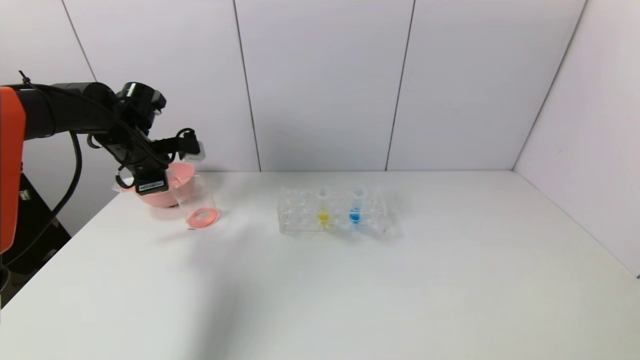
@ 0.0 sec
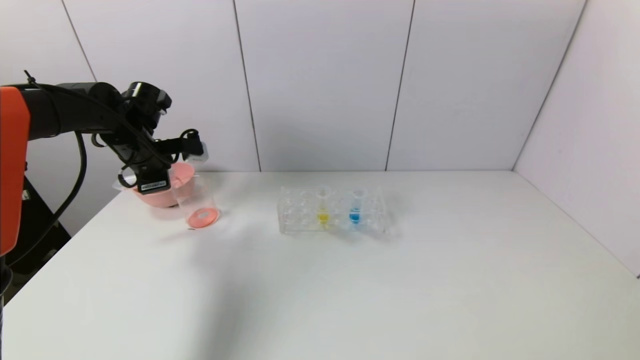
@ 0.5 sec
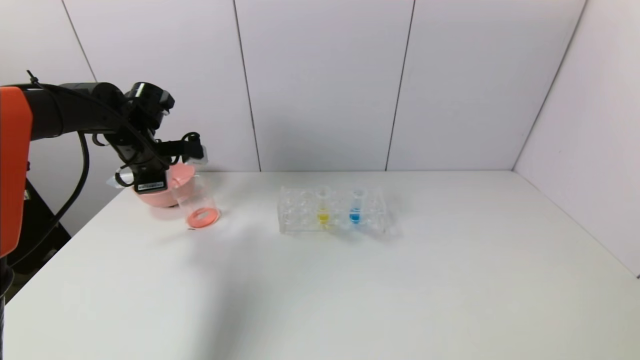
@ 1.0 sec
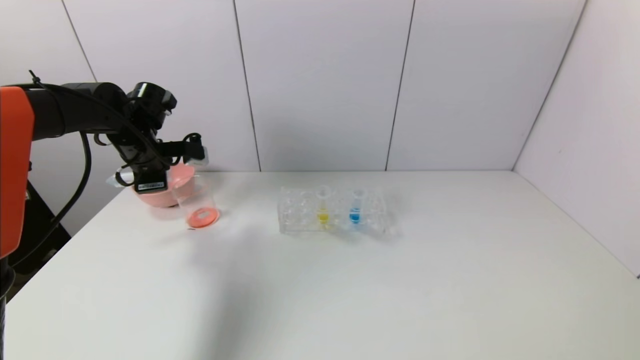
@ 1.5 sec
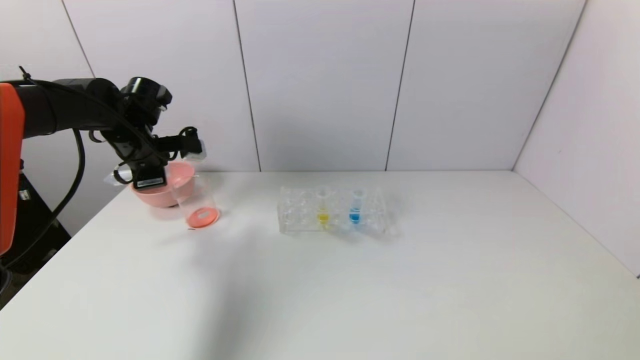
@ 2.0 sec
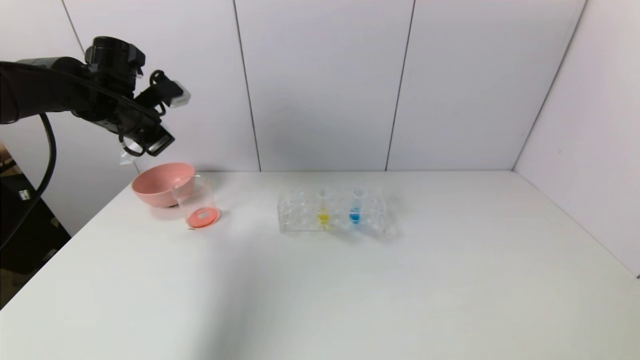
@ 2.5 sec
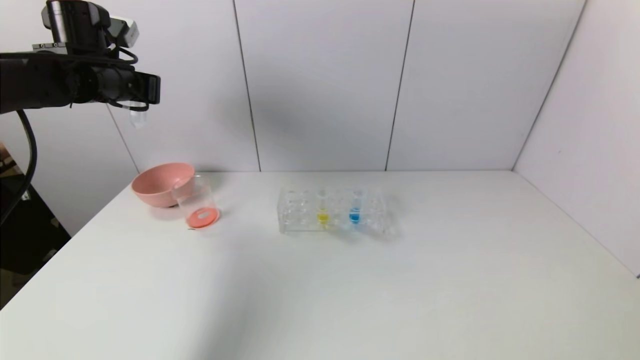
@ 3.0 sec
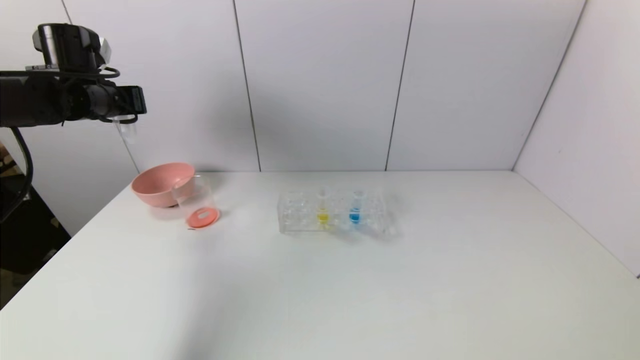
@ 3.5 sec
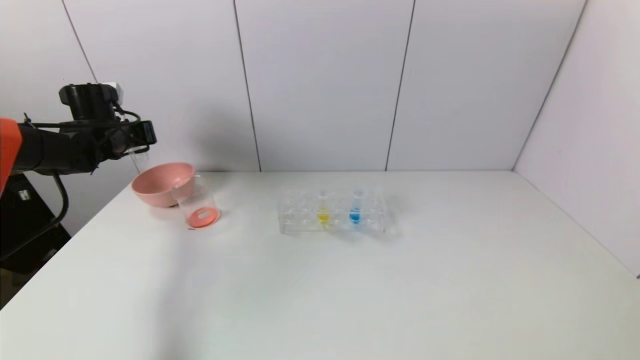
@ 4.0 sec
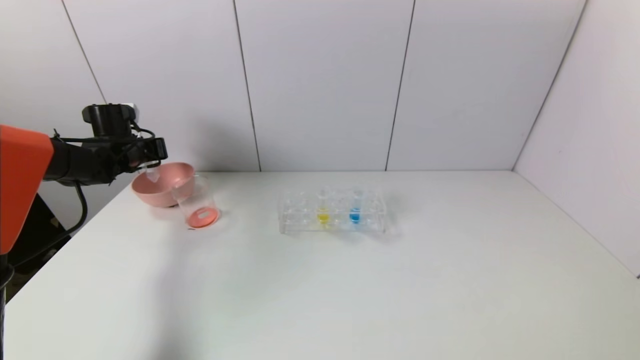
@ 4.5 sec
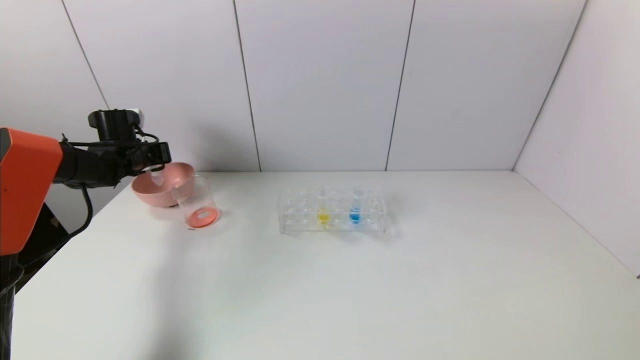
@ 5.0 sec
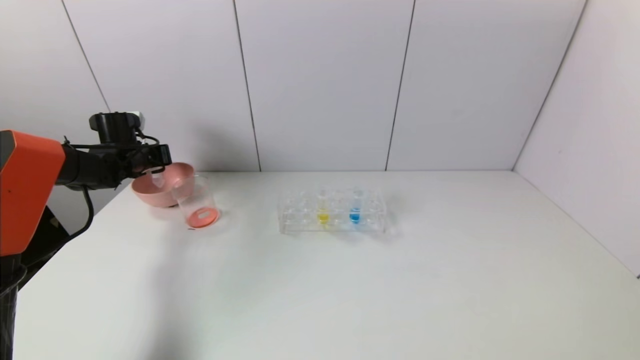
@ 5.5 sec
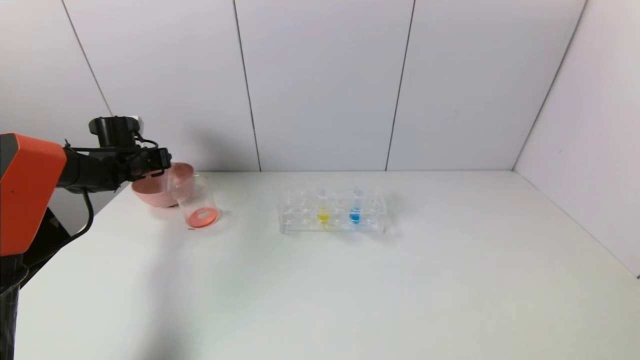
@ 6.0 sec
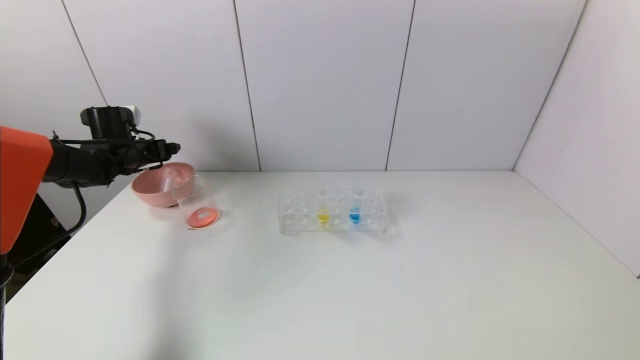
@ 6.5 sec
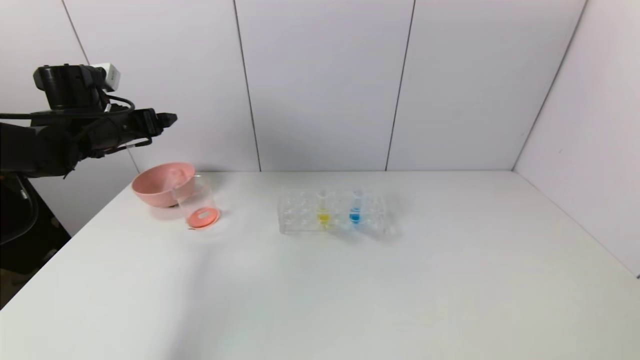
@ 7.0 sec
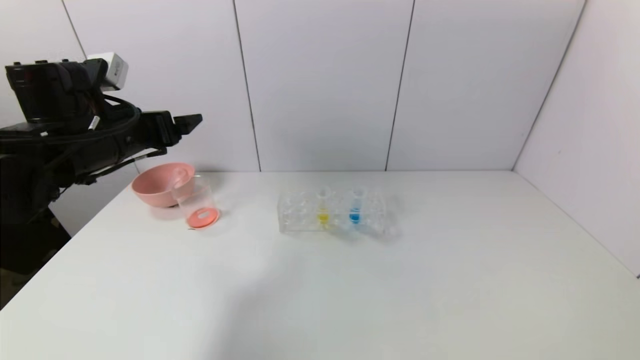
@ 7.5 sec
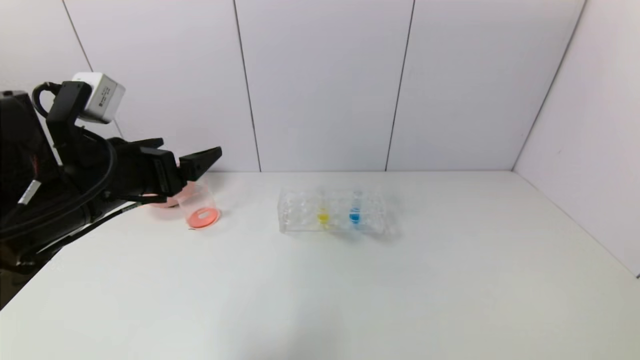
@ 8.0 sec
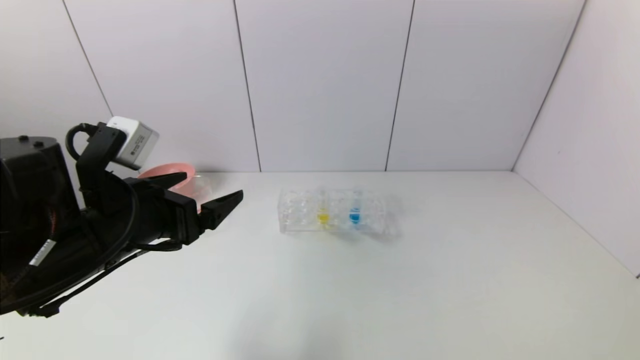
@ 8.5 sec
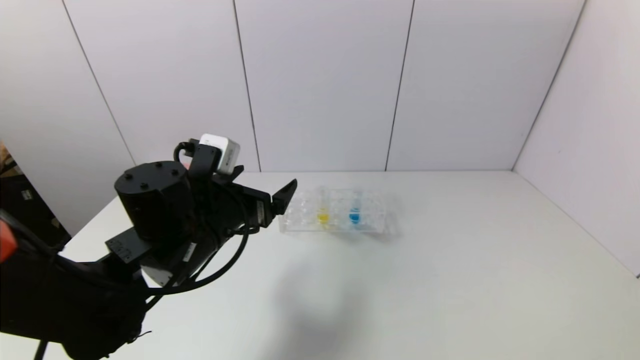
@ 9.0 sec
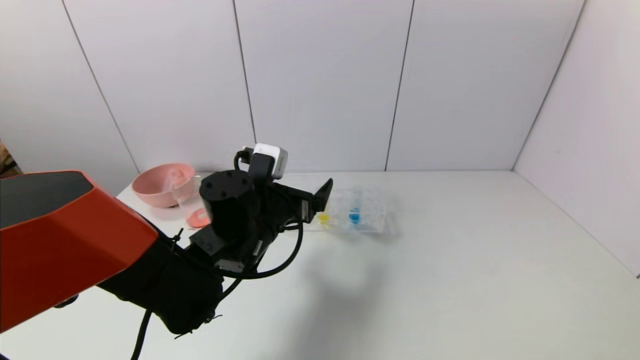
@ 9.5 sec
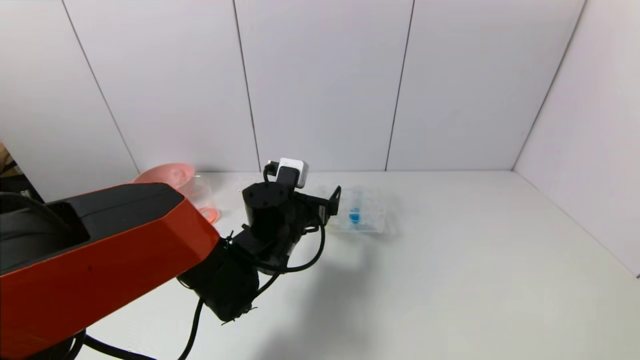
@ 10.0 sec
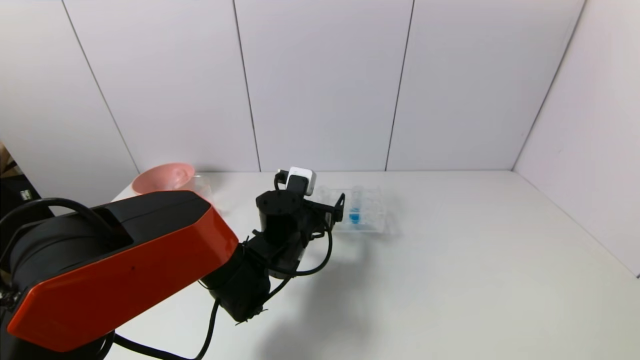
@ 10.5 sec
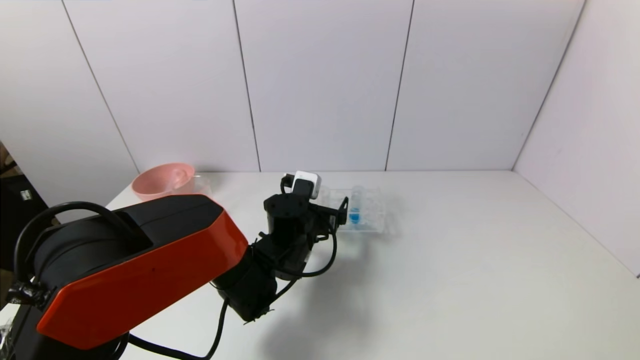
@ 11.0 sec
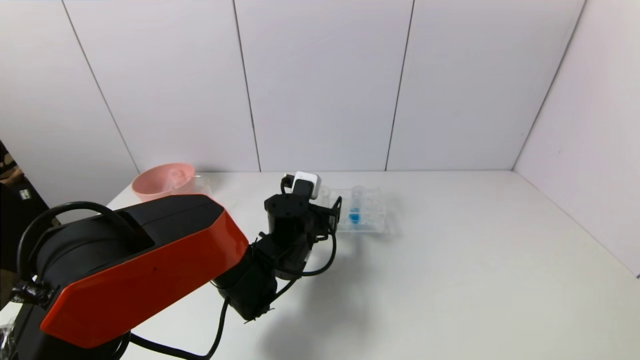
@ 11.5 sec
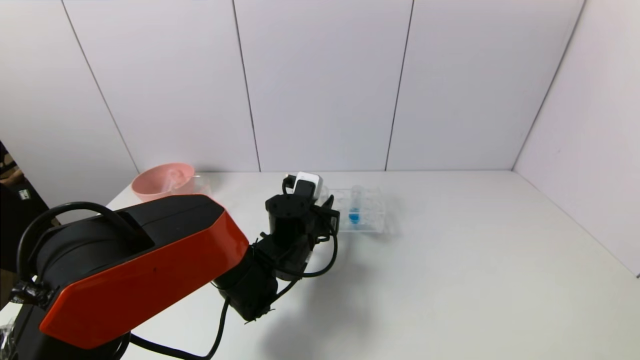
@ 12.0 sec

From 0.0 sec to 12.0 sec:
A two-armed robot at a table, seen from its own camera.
Task of the whole recording: pick up the test tube with yellow pigment and the test tube with red pigment by grippers and pour them into the beaker.
Step, from 2.0 sec to 6.0 sec: Place the test tube into the pink bowl with the left gripper.
From 0.0 sec to 2.0 sec: The grippers stay close to where they were, moving slightly.
From 2.0 sec to 4.0 sec: The left gripper is displaced to the left by approximately 10 cm, and travels upward and back again, about 10 cm each way.
From 4.0 sec to 6.0 sec: The left gripper goes about 5 cm downward, and opens up.
From 6.0 sec to 8.0 sec: The left gripper travels backward and to the right by about 30 cm, and opens its fingers.
From 8.0 sec to 10.0 sec: The left gripper shifts approximately 25 cm to the right, downward and forward.
From 10.0 sec to 12.0 sec: The left gripper closes up.

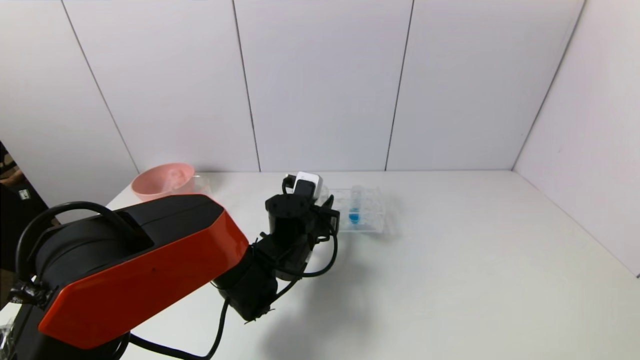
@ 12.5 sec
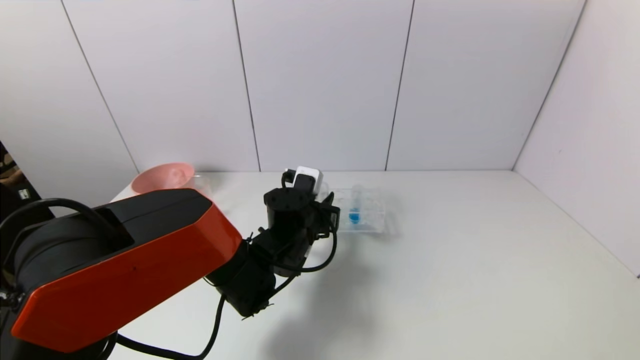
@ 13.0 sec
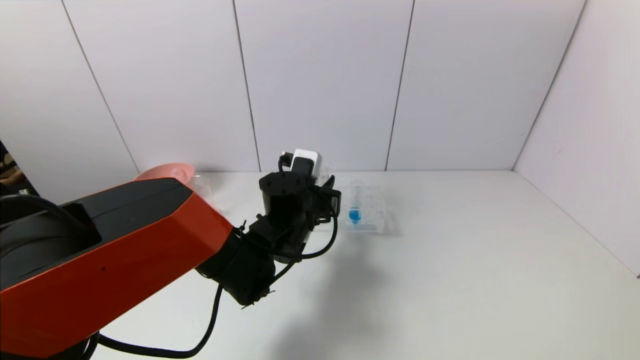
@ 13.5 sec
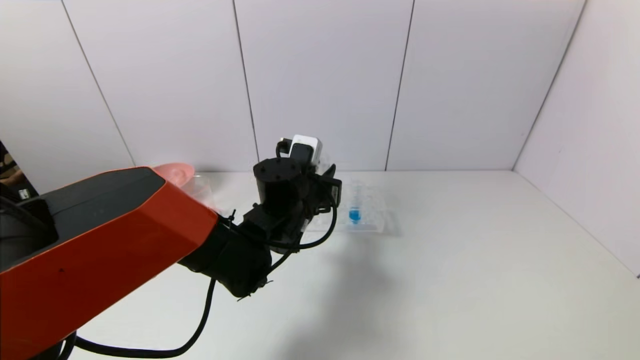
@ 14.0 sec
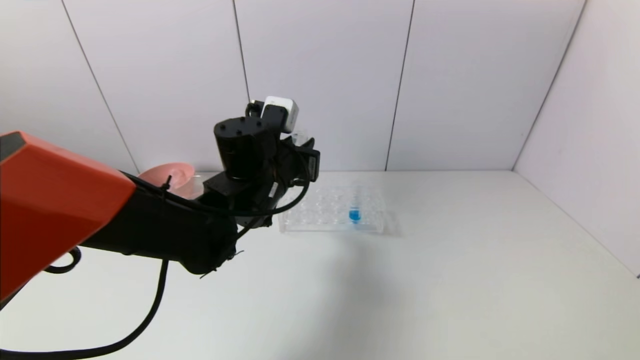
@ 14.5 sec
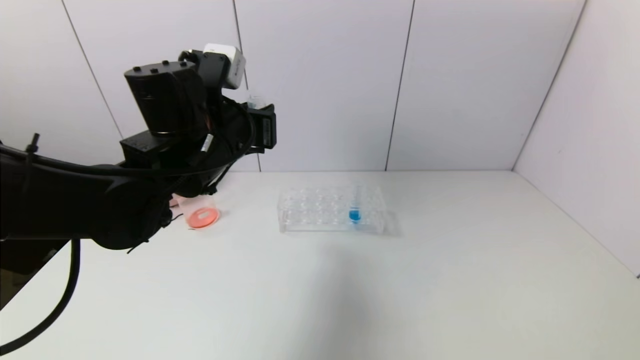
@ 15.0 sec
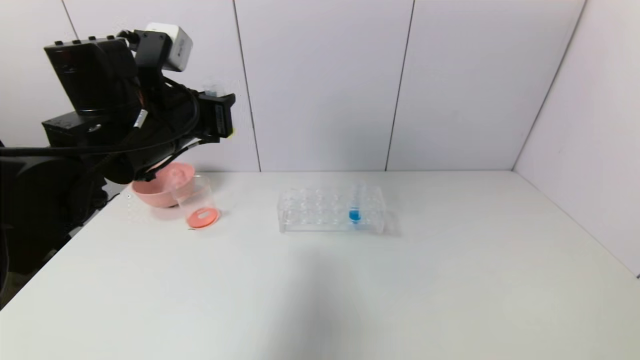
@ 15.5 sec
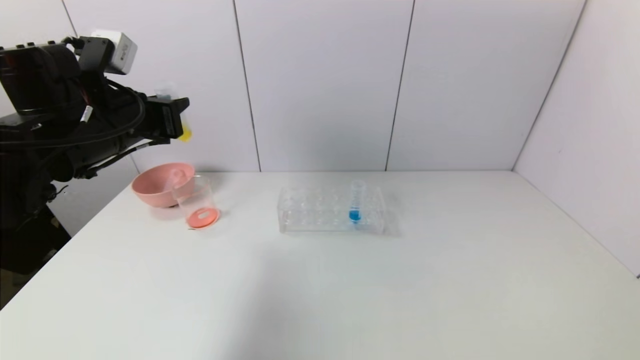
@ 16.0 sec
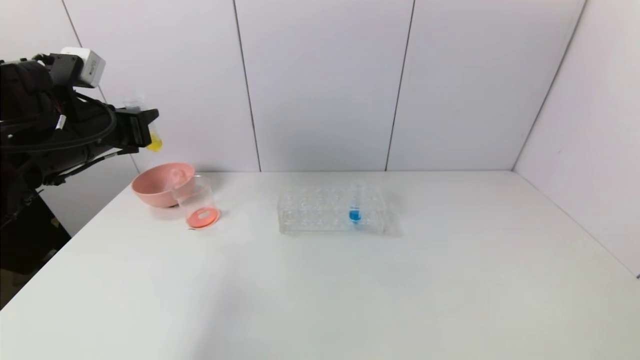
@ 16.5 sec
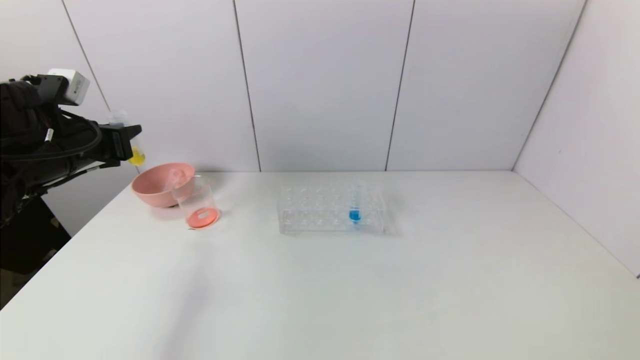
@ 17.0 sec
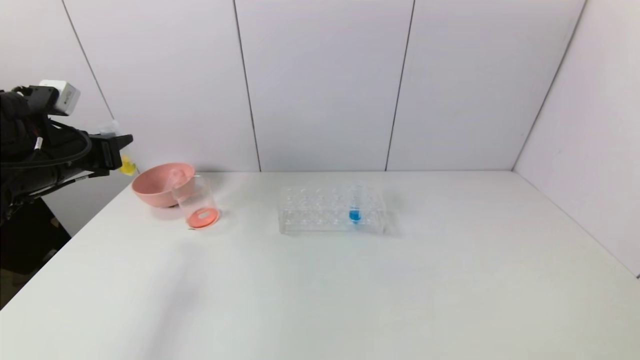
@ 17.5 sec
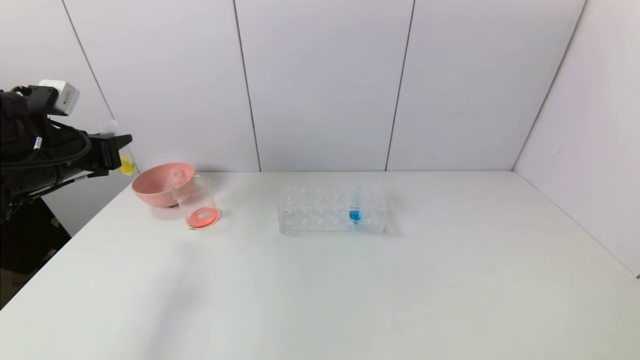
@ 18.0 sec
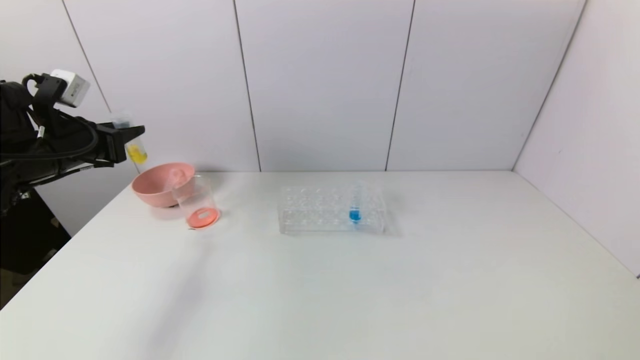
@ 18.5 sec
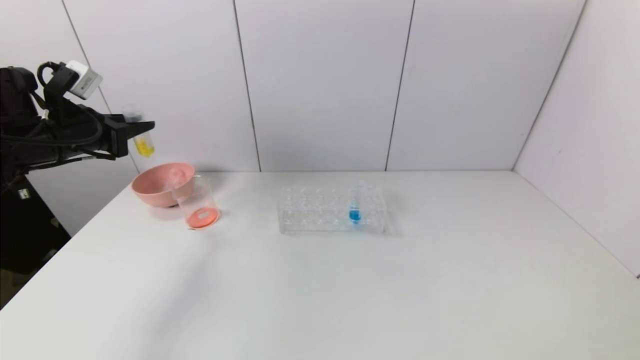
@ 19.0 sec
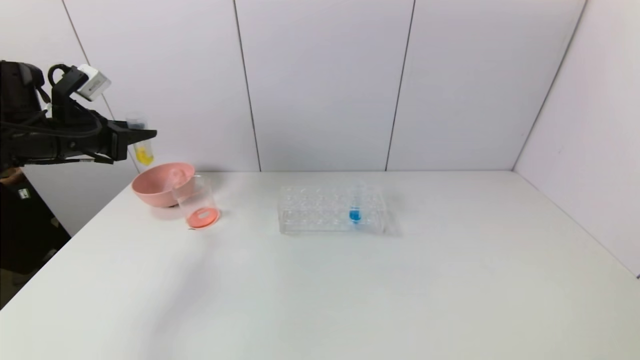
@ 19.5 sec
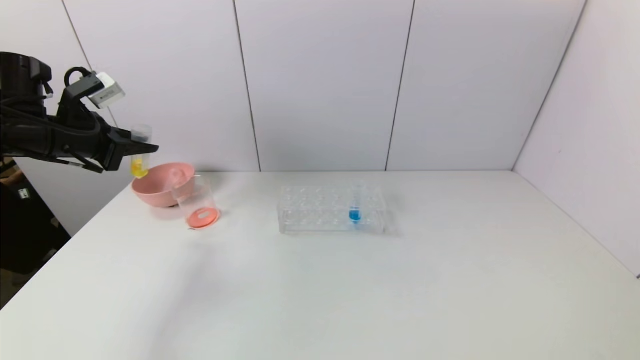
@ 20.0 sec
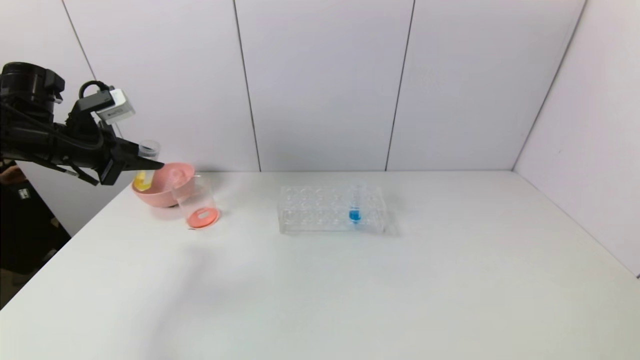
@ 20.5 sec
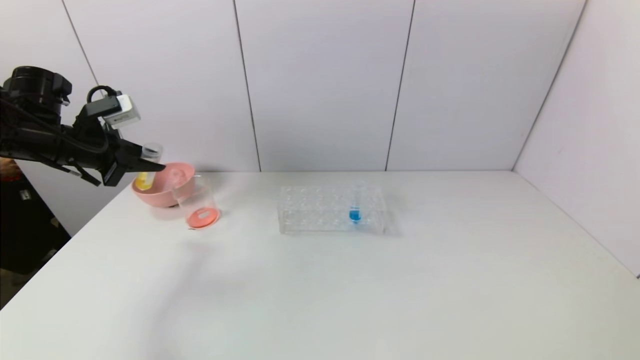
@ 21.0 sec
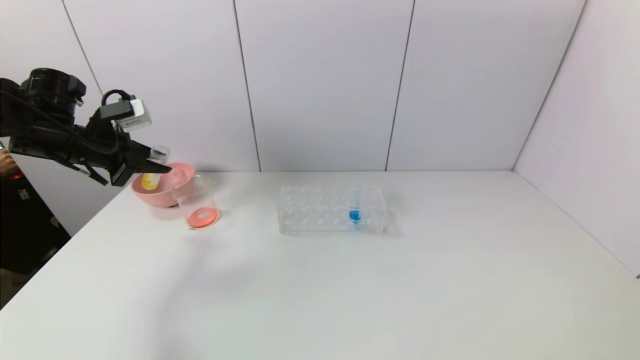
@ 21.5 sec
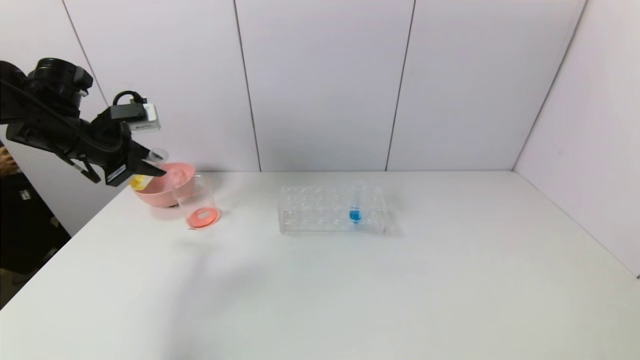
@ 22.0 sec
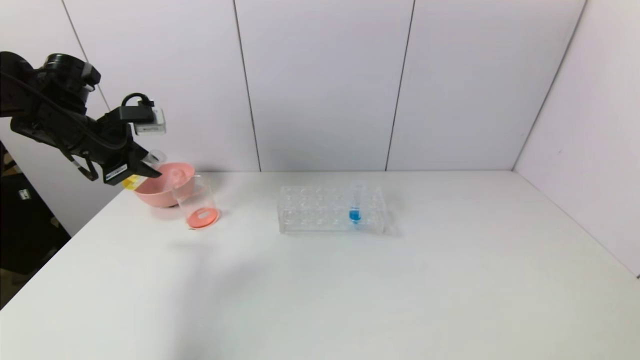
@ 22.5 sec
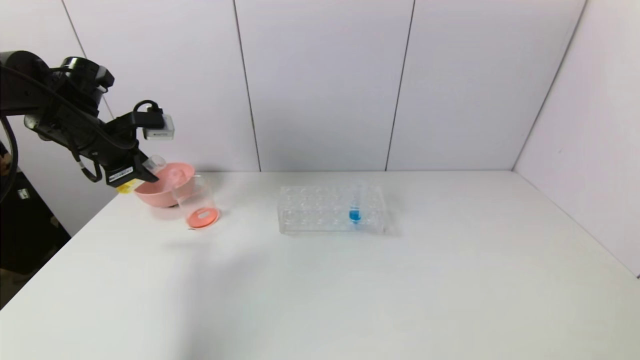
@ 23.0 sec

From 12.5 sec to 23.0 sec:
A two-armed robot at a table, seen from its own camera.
Task of the whole recording: pick up the test tube with yellow pigment and the test tube with red pigment by grippers and pour them into the beaker.
From 12.5 sec to 14.5 sec: The left gripper goes approximately 15 cm upward.
From 14.5 sec to 16.5 sec: The left gripper shifts approximately 25 cm to the left.
From 16.5 sec to 19.0 sec: The left gripper goes approximately 5 cm to the left.
